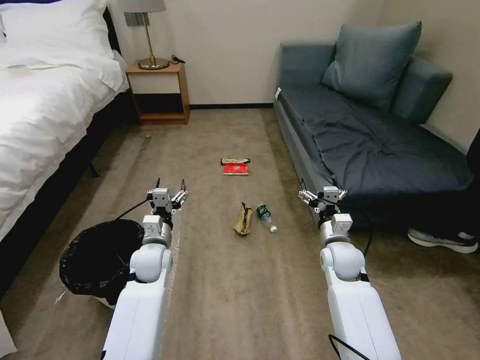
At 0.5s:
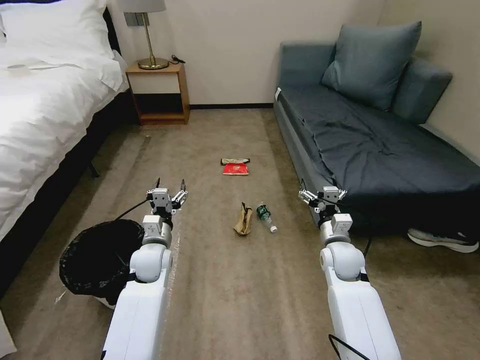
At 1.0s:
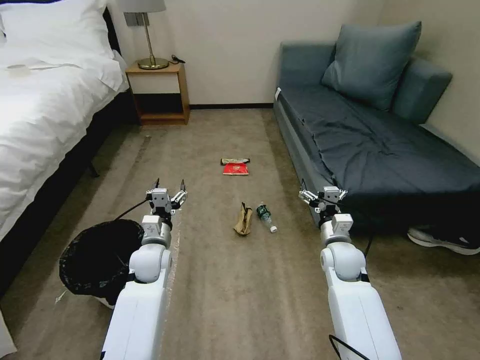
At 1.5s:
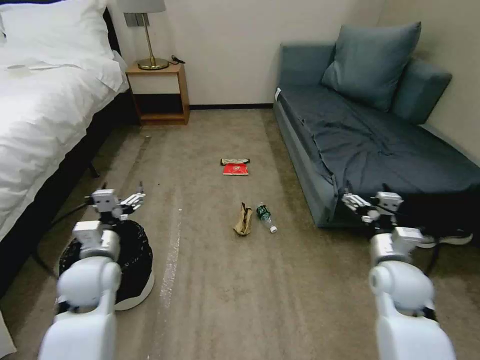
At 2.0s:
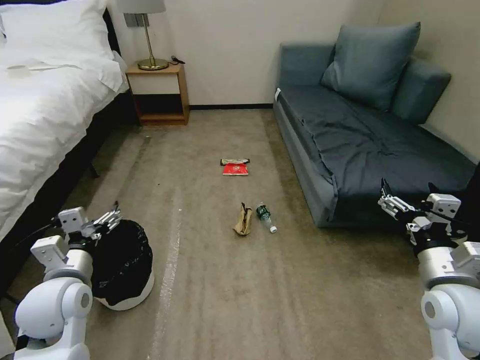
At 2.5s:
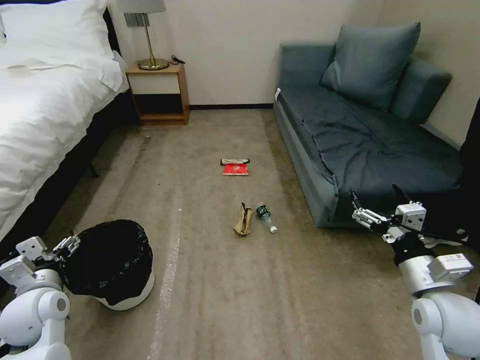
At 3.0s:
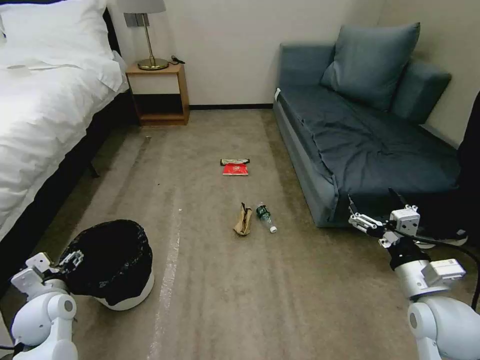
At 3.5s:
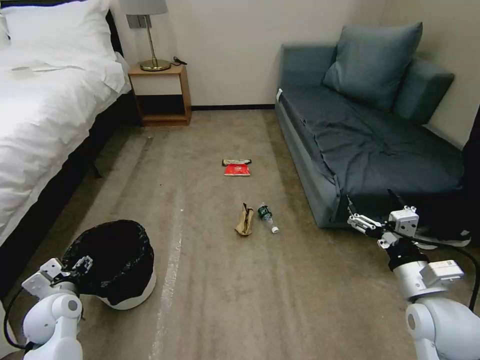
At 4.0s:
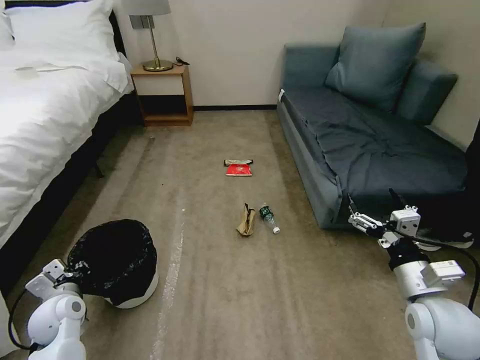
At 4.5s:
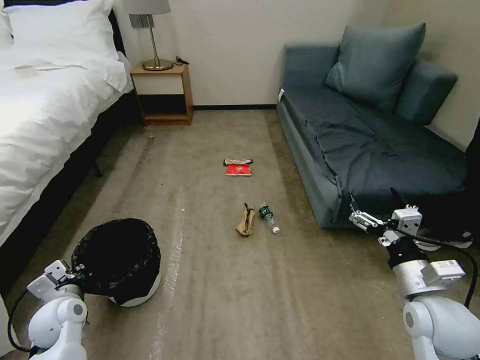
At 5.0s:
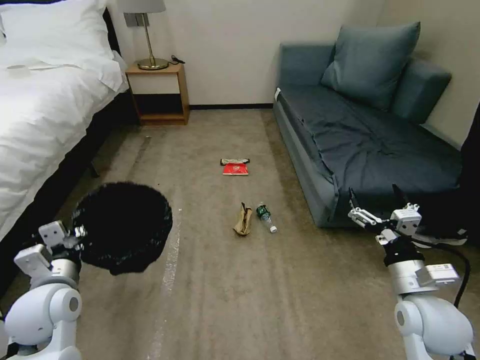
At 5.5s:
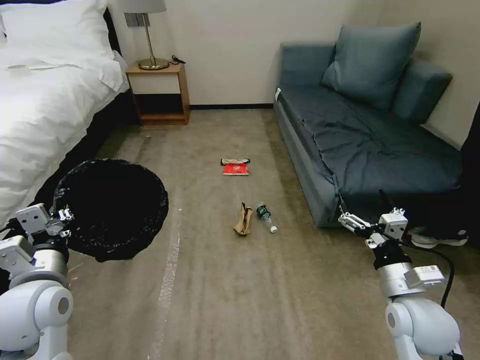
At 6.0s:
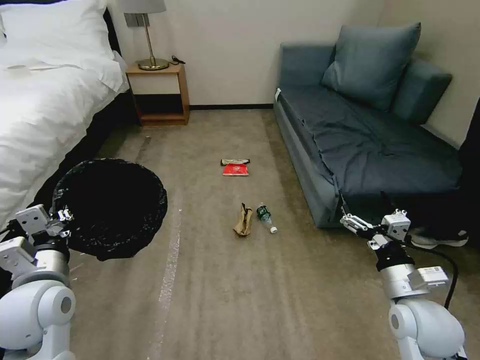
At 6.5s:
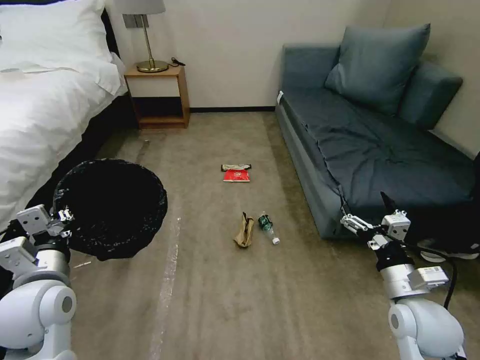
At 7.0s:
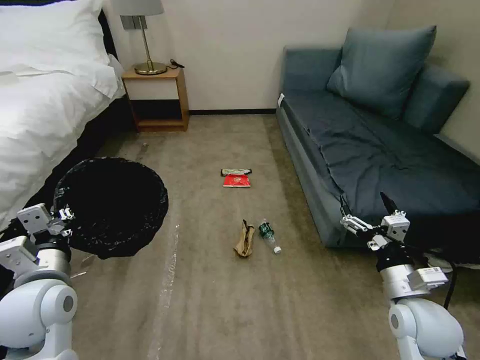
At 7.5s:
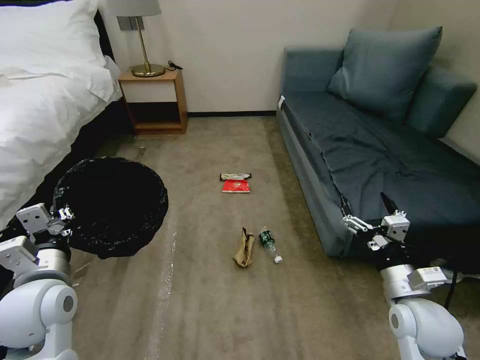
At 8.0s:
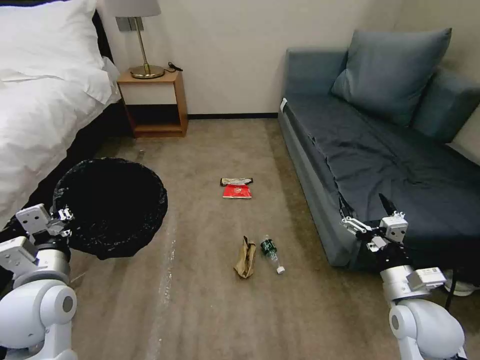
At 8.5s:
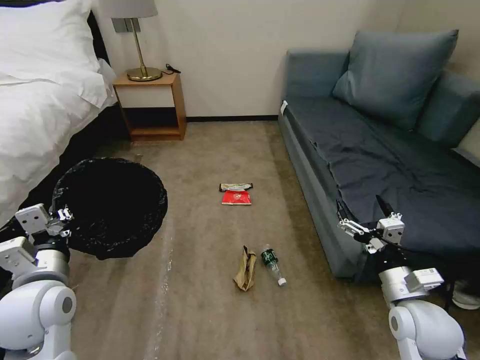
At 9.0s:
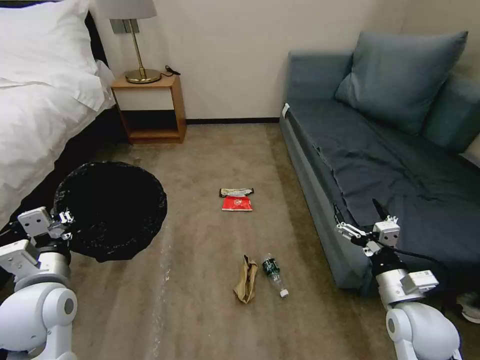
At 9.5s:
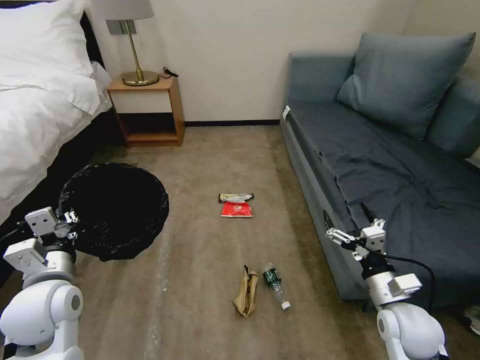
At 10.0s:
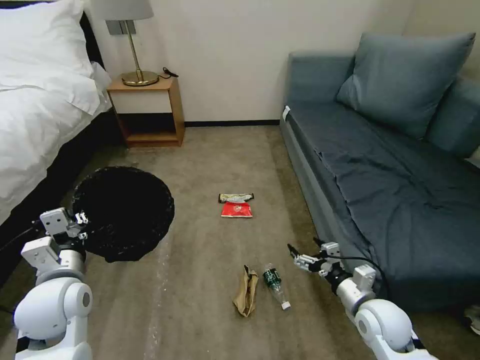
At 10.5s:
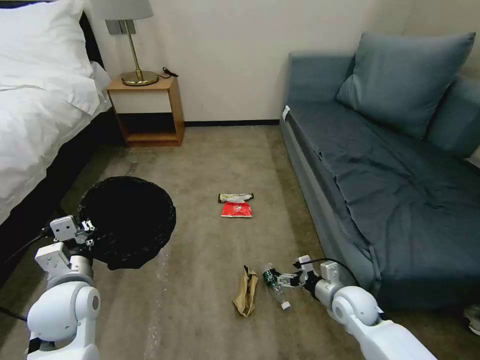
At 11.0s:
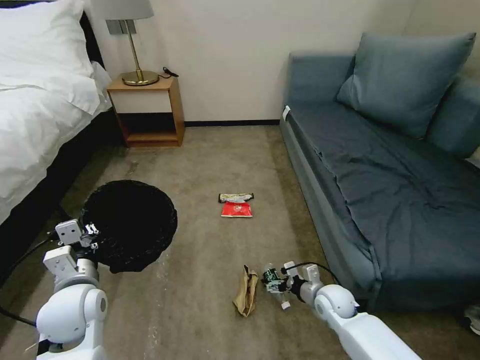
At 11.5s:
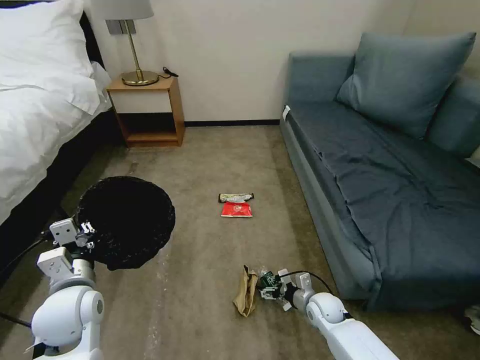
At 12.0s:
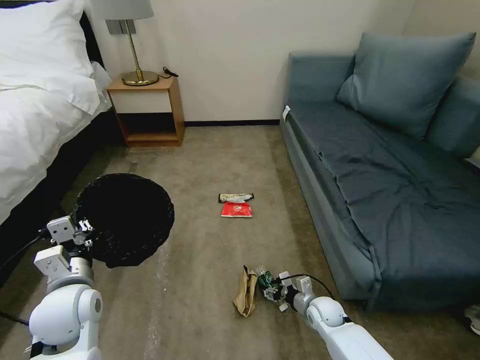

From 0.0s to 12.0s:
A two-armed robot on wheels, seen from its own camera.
Task of the whole recording: Pick up the trash bin, then pick up the garbage on the floor and place it into the trash bin.
From 2.0s to 4.0s: The left gripper moves downward and to the left, about 15 cm, and closes up.
From 4.0s to 6.0s: The left gripper goes approximately 20 cm upward and to the right.
From 8.0s to 10.0s: The right gripper travels downward by about 10 cm.
From 10.0s to 12.0s: The right gripper heads downward, covering approximately 15 cm.

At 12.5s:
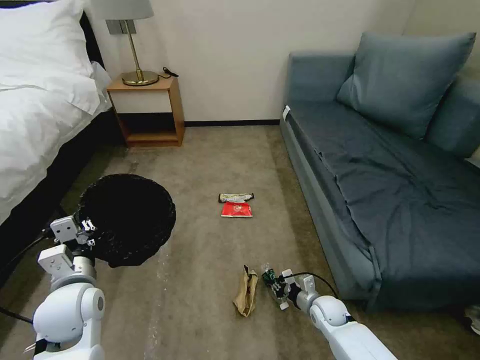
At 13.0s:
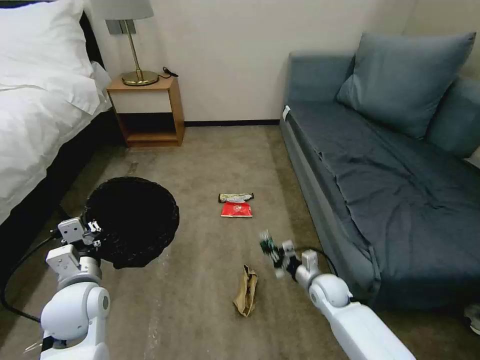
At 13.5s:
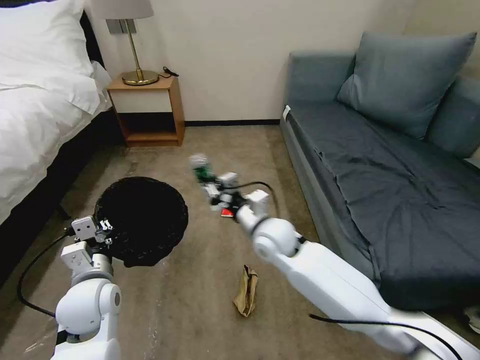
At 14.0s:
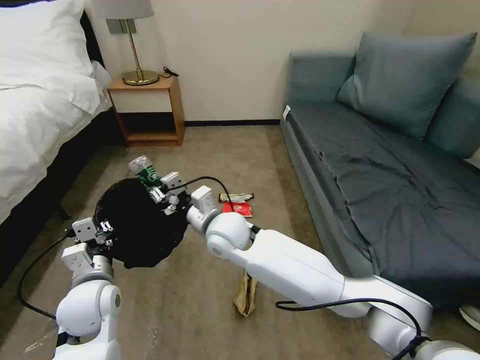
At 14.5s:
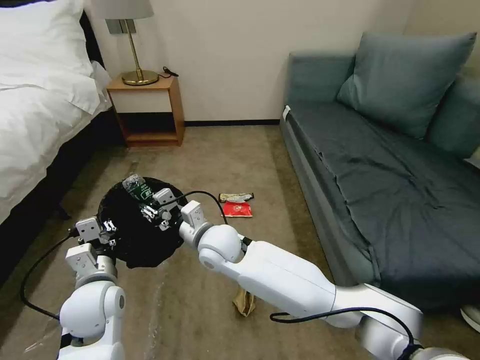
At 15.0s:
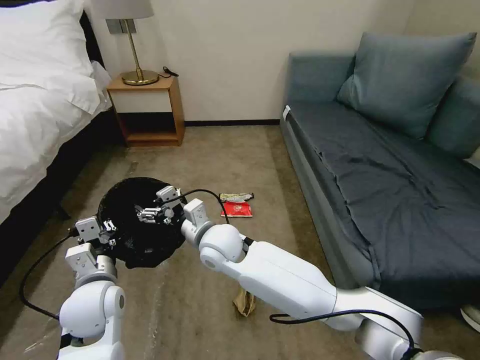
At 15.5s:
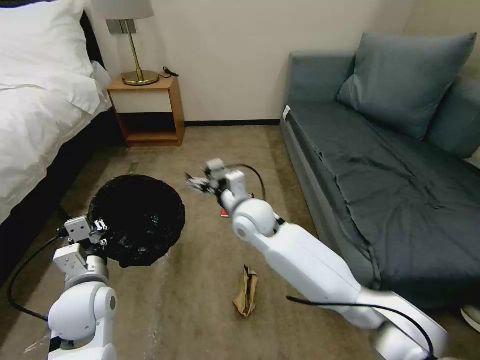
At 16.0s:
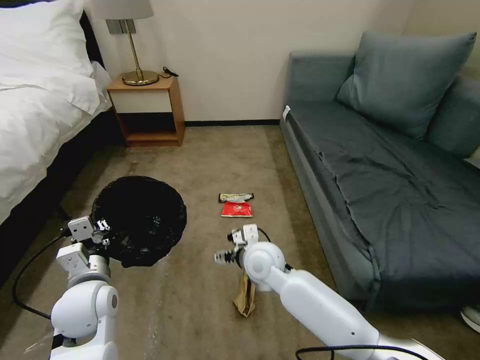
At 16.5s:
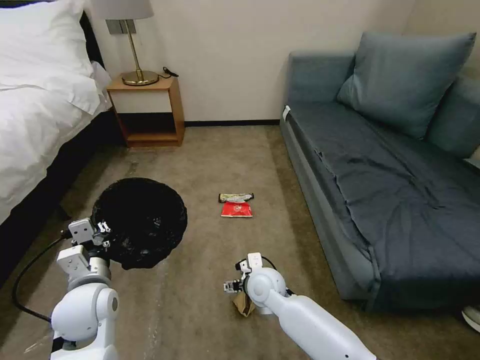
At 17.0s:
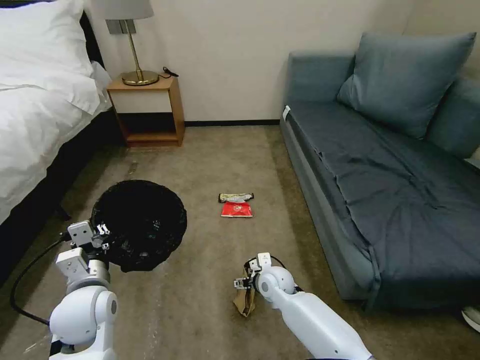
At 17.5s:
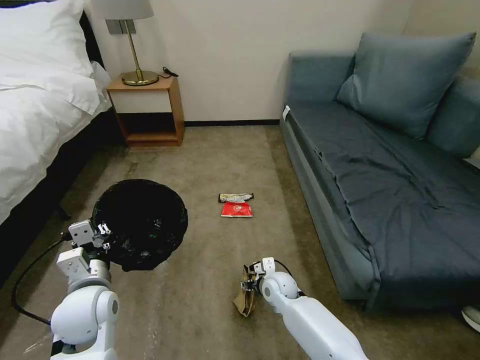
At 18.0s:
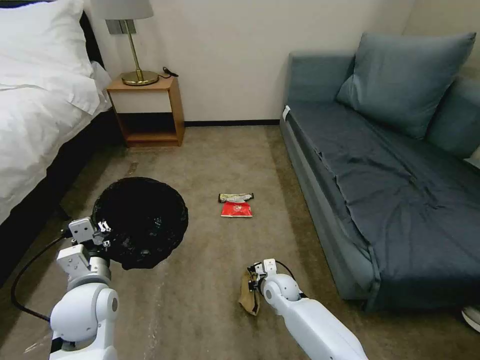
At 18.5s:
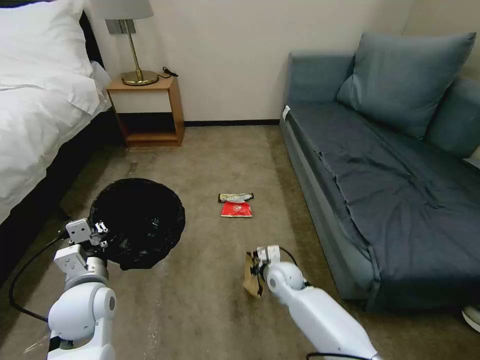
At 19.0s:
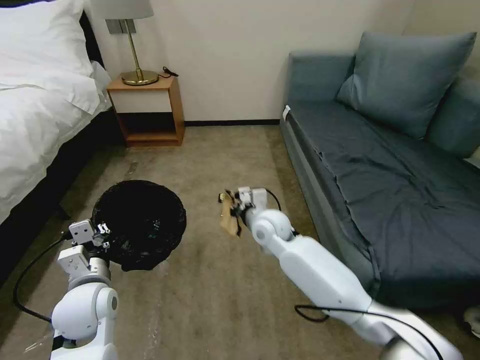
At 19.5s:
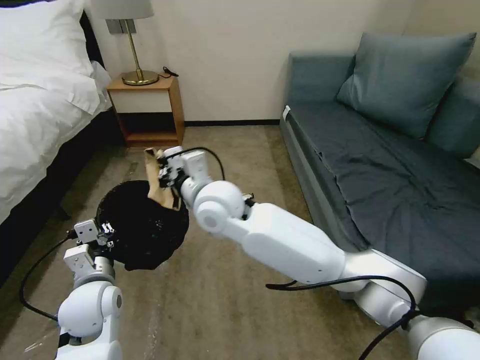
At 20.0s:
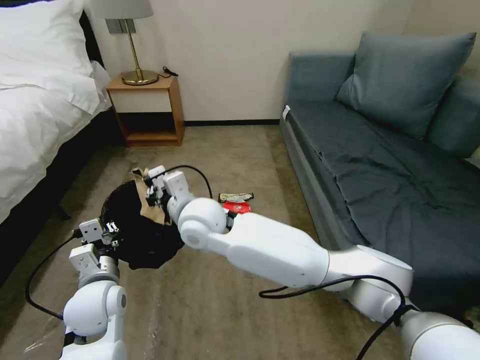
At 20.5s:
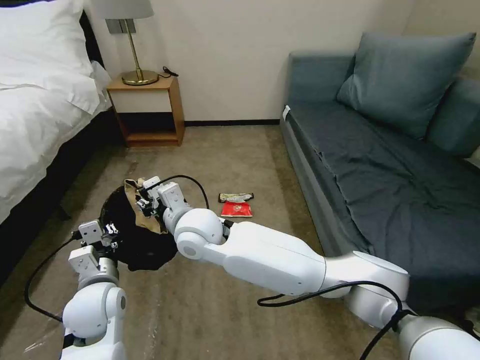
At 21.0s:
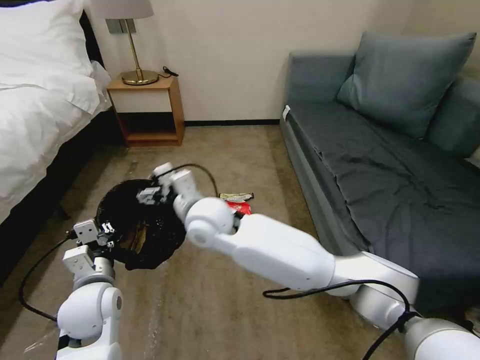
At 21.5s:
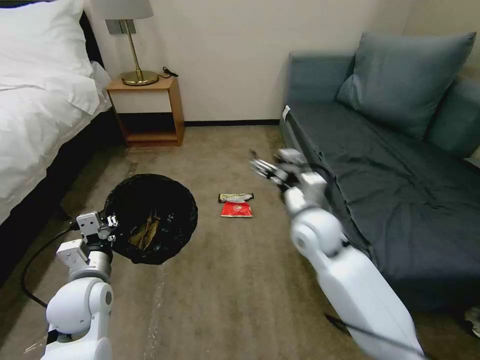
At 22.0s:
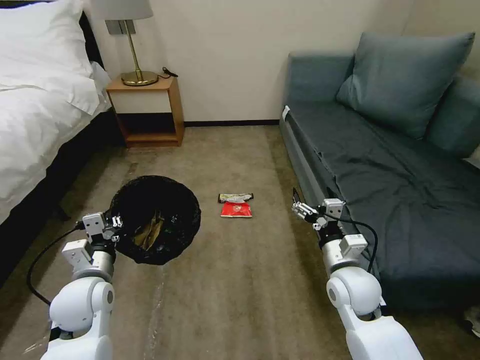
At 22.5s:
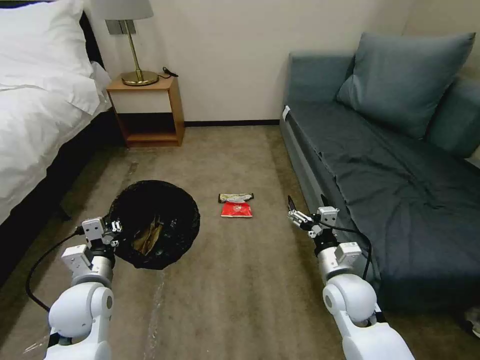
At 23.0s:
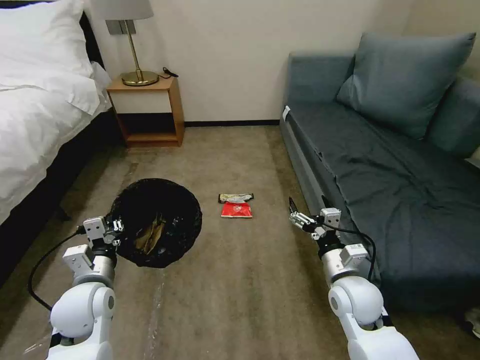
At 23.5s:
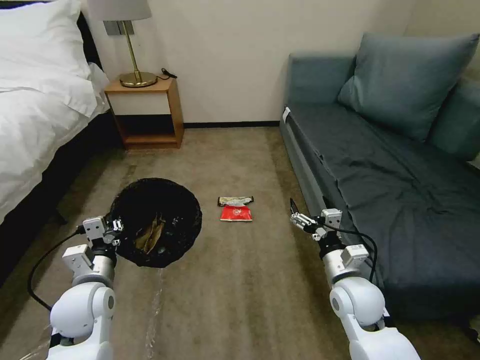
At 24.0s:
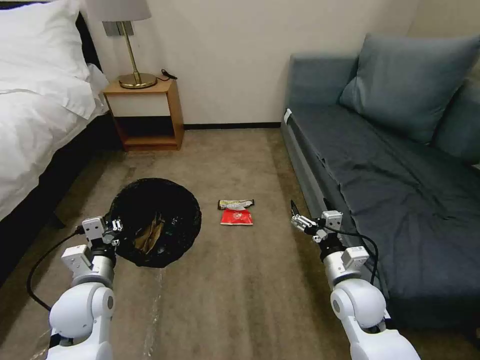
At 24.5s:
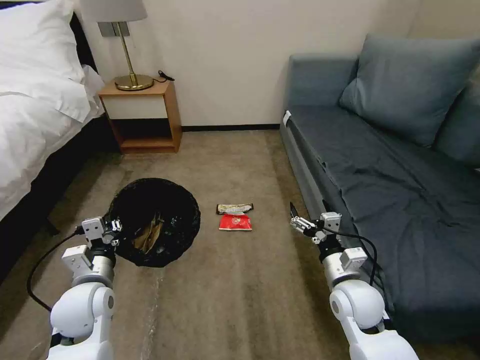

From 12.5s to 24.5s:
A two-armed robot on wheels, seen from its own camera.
Task of the whole recording: Pick up the trash bin, then pick up the garbage on the floor and place it into the trash bin.
From 12.5s to 14.5s: The right gripper is displaced to the left and upward by approximately 40 cm.
From 14.5s to 16.5s: The right gripper goes about 20 cm downward and to the right, and opens up.
From 16.5s to 18.5s: The right gripper is displaced to the right by roughly 5 cm, and closes its fingers.
From 18.5s to 20.5s: The right gripper is displaced upward and to the left by roughly 30 cm, and opens its fingers.
From 20.5s to 22.5s: The right gripper shifts approximately 30 cm to the right, and opens.
From 22.5s to 24.5s: There are only small adjustments of the grippers.

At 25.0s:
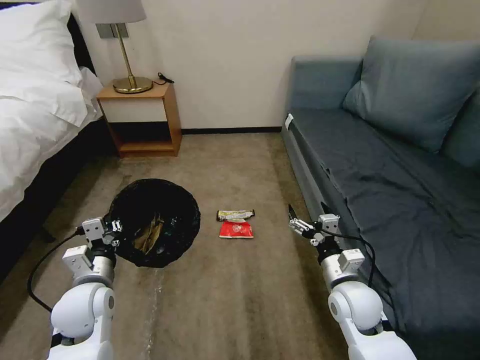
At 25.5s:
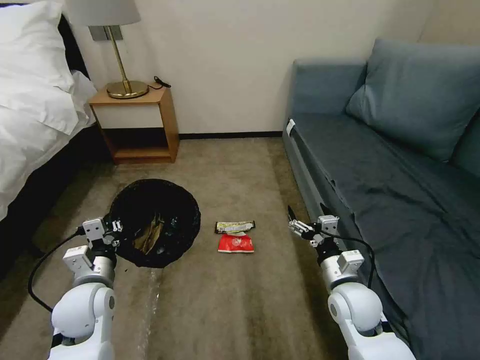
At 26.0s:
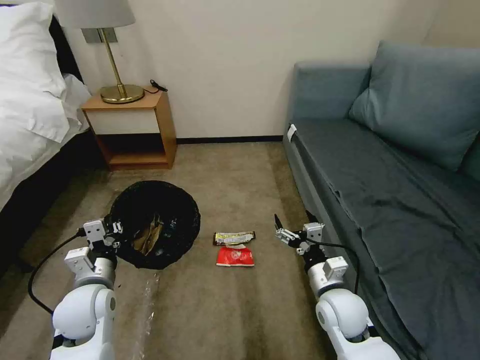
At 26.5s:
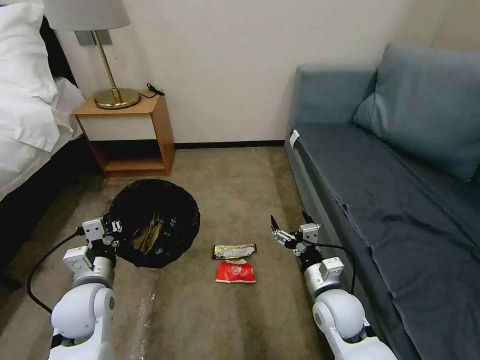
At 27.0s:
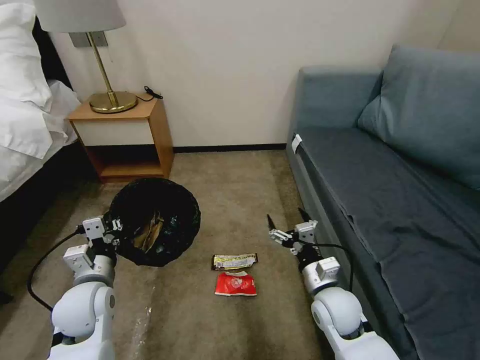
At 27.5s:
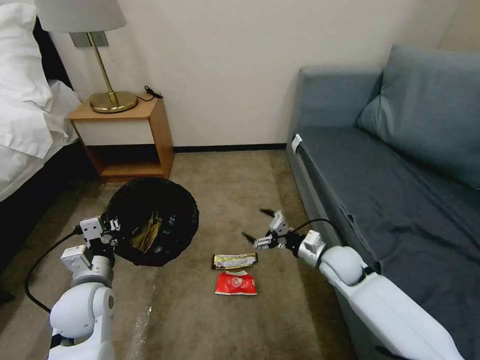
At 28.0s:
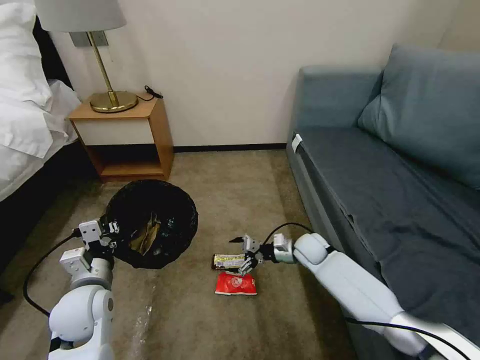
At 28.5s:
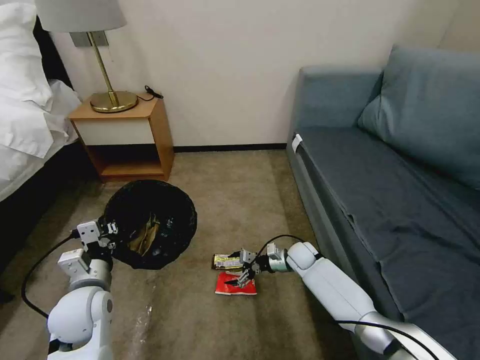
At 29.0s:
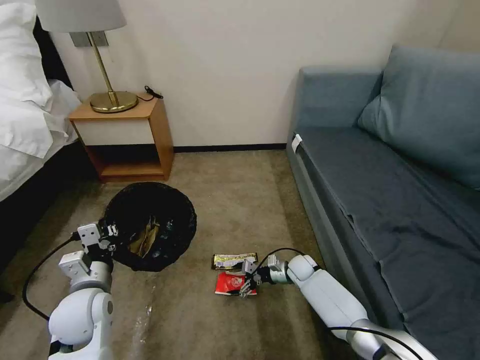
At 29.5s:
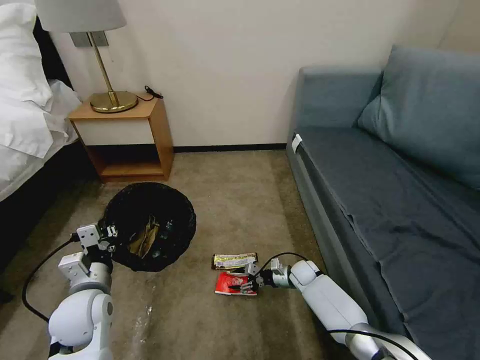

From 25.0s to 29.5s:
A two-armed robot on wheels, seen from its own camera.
Task of the whole recording: Pick up the trash bin, then pick up the garbage on the floor and place it into the trash bin.
From 27.0s to 29.5s: The right gripper shifts approximately 25 cm downward and forward, and closes.
